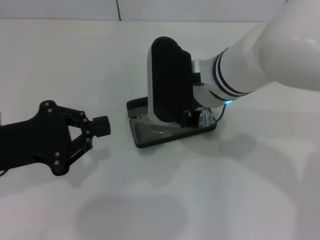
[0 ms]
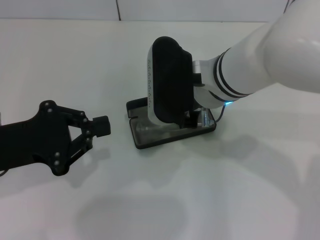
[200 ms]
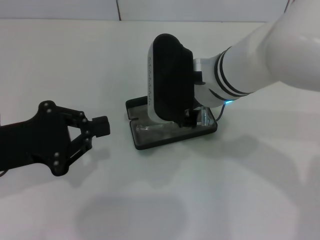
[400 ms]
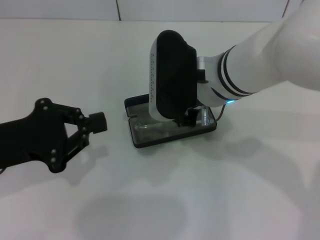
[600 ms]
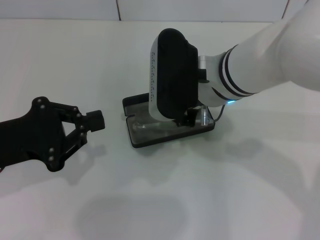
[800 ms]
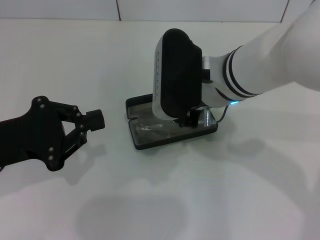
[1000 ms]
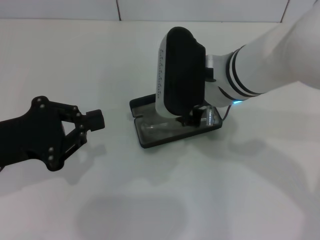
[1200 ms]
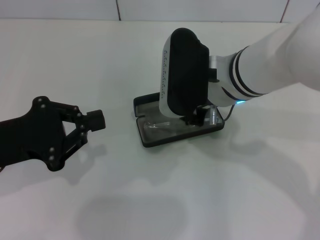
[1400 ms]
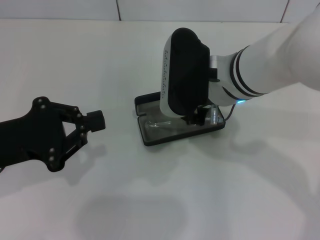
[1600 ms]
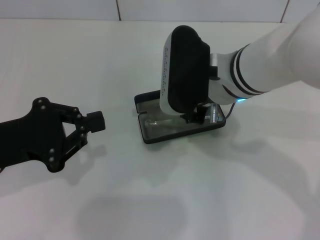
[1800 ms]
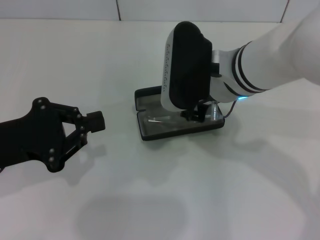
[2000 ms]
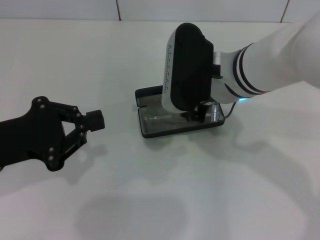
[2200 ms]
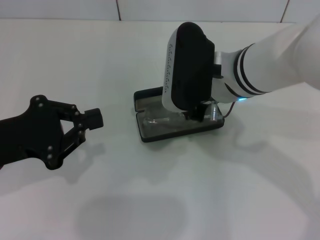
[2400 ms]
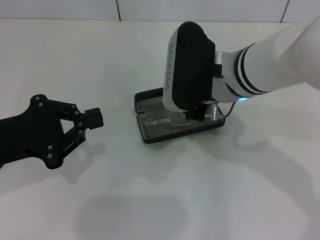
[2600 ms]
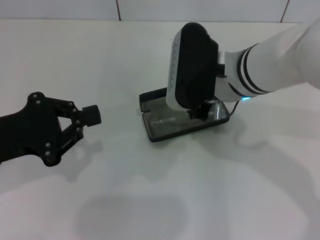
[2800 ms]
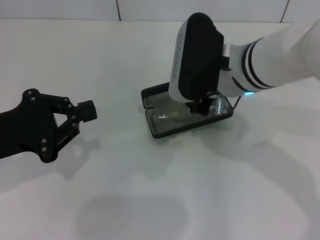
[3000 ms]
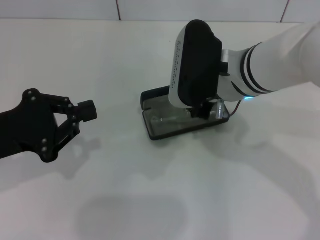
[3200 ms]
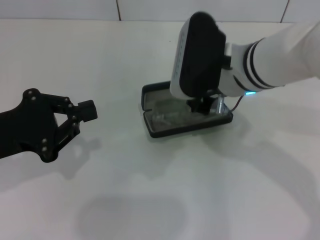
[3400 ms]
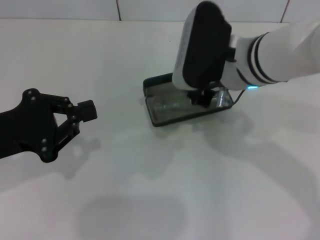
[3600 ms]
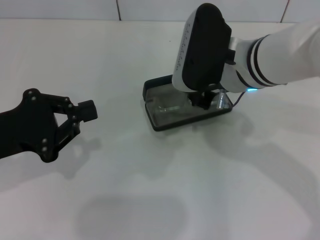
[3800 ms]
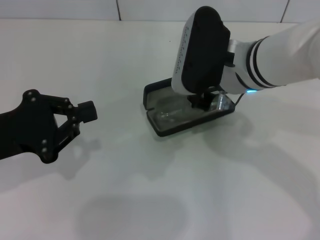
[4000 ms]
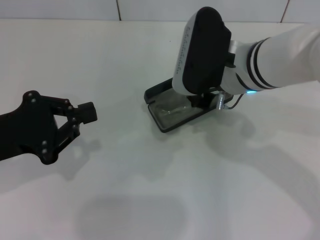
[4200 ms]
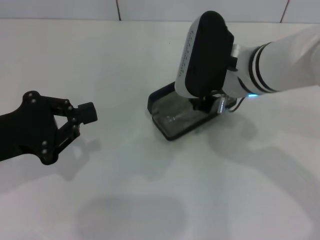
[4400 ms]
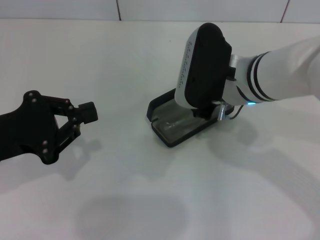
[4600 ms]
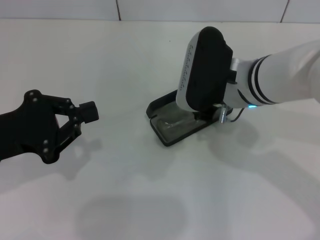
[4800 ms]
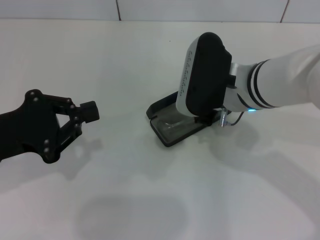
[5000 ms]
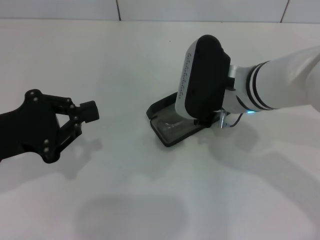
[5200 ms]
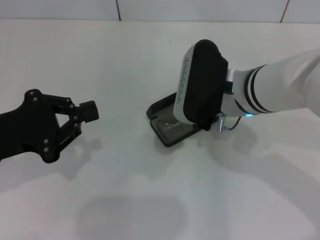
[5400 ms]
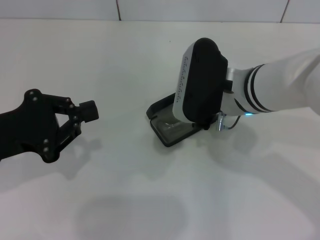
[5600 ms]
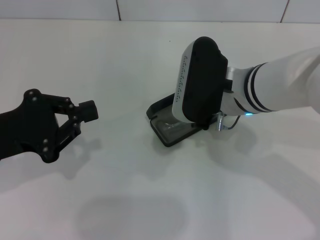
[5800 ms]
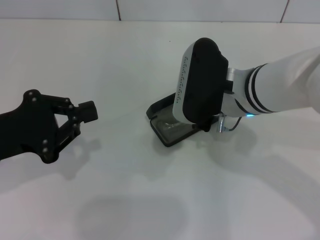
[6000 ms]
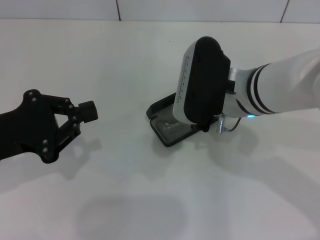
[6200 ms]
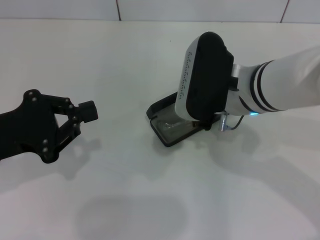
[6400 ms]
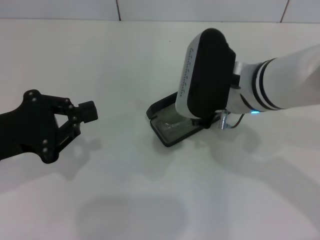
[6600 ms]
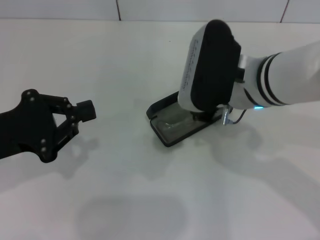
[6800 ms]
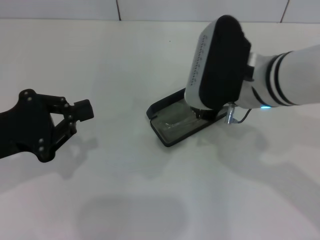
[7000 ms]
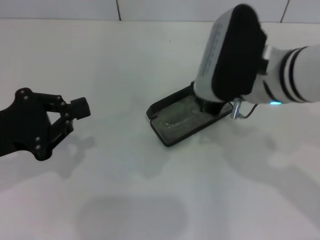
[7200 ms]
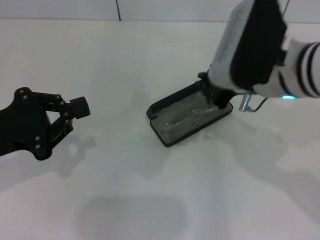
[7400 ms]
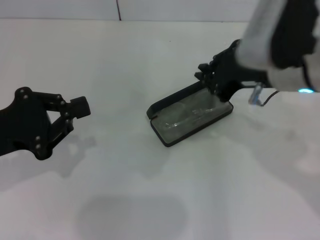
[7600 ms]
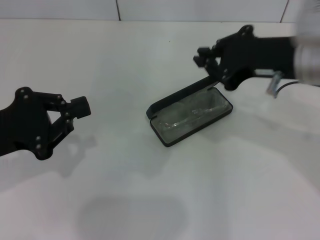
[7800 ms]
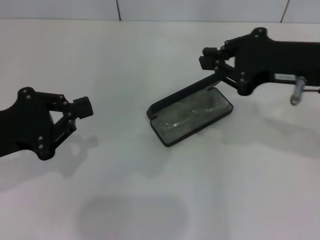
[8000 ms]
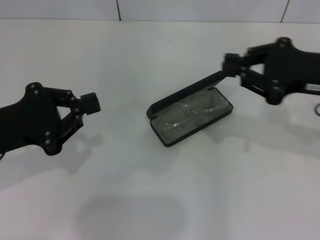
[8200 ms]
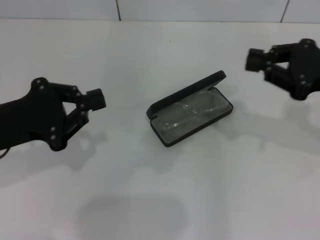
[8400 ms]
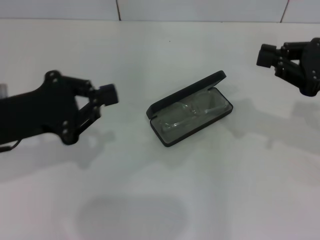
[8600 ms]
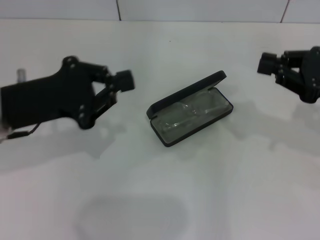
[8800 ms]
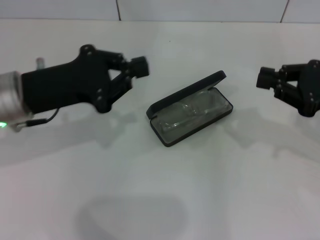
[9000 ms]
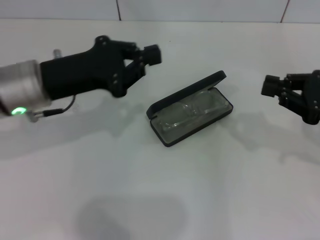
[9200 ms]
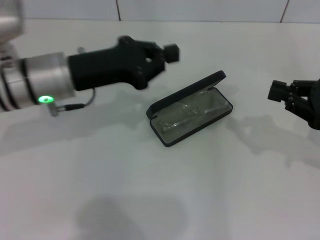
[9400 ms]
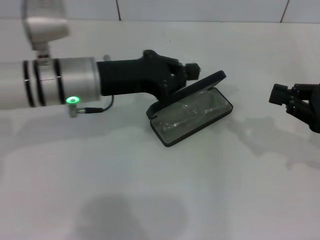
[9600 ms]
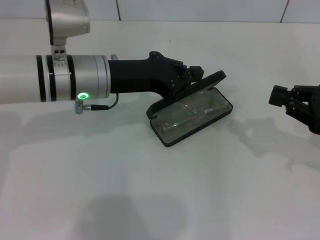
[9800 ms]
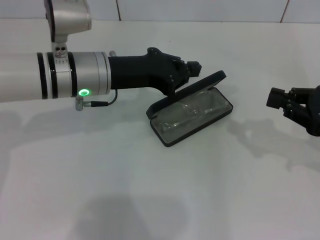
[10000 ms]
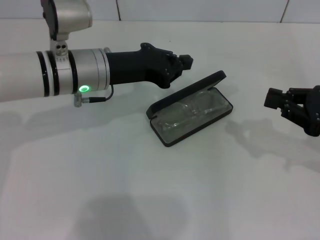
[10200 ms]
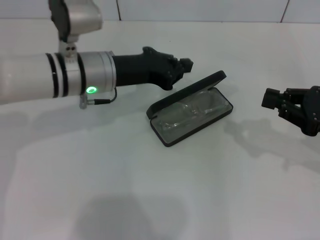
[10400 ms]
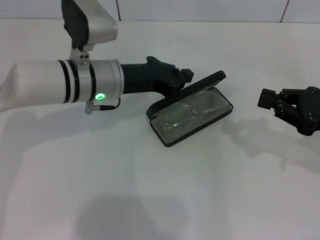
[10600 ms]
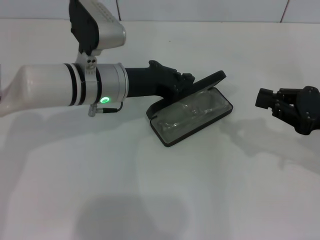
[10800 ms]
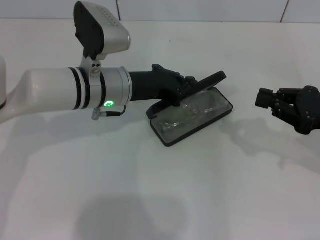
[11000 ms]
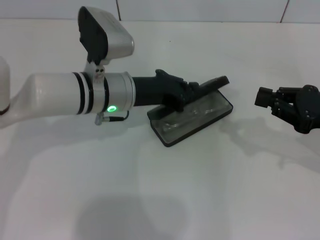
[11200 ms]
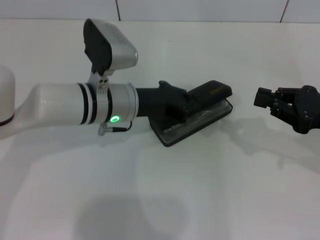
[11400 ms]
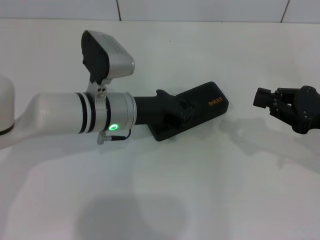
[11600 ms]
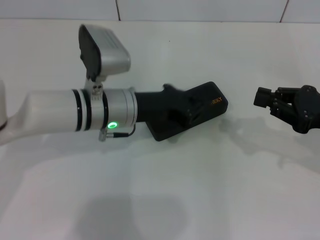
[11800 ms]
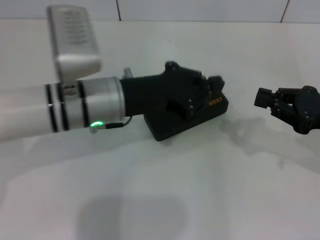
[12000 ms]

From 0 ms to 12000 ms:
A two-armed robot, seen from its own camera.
Step, from 0 ms to 6800 ms: Put the glasses into the case with your right hand.
Step, from 7000 ms to 11600 ms: Close the glasses case with your left hand.
From 0 ms to 6000 ms: The grippers stay close to where they were, moving slightly.
From 6000 ms to 7600 ms: The right gripper goes approximately 10 cm to the right and upward.
From 7600 ms to 9000 ms: The left gripper is displaced forward and to the right by roughly 10 cm. The right gripper heads to the right, covering about 15 cm.
From 9000 ms to 10400 ms: The left gripper travels to the right and forward by some 10 cm.
From 10400 ms to 12000 ms: The left gripper shifts about 5 cm backward.

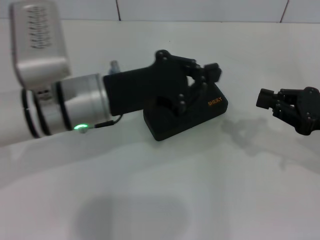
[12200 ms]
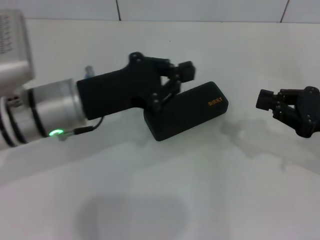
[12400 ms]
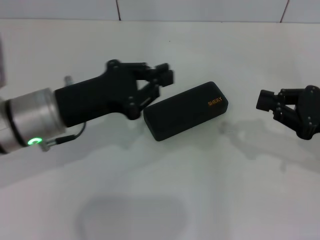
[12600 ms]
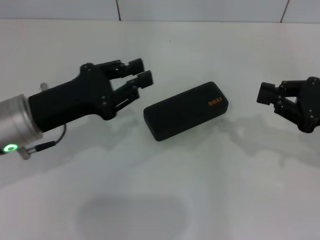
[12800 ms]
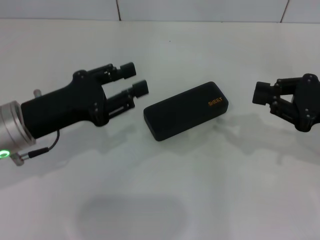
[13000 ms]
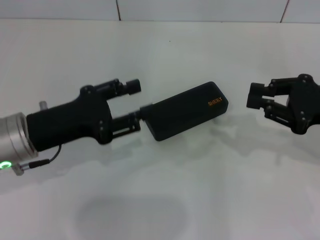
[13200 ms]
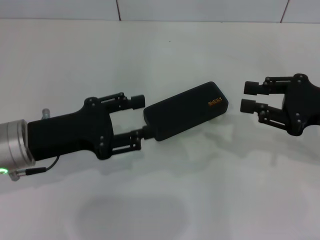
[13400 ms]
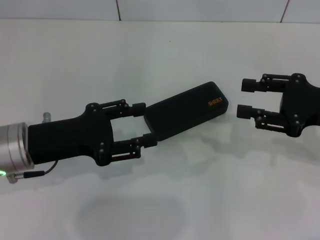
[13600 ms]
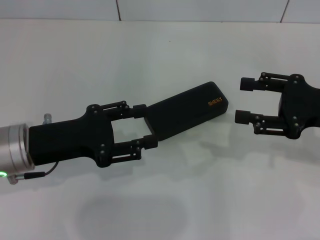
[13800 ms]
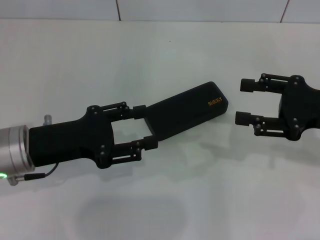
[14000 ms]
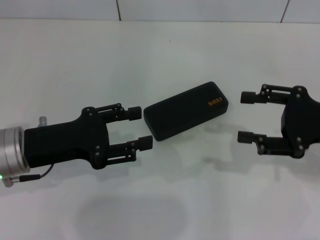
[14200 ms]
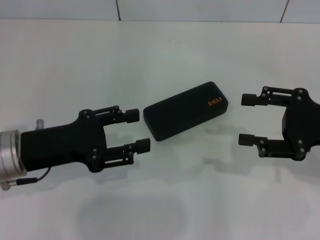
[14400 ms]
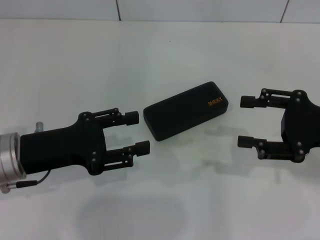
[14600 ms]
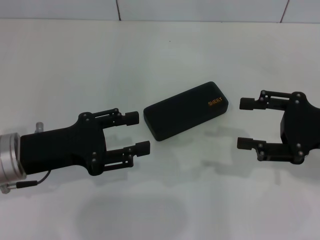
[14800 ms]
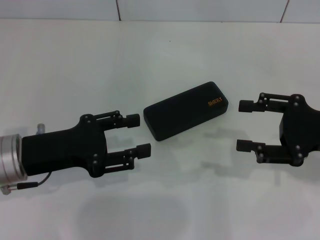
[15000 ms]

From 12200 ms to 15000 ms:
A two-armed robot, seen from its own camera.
From 12200 ms to 13600 ms: The left gripper shifts about 10 cm to the left, and opens up, while the right gripper opens its fingers.
From 13600 ms to 15000 ms: The right gripper opens.
